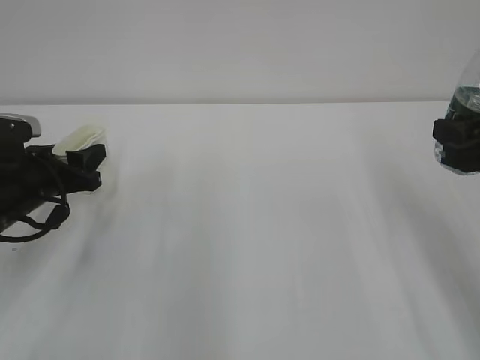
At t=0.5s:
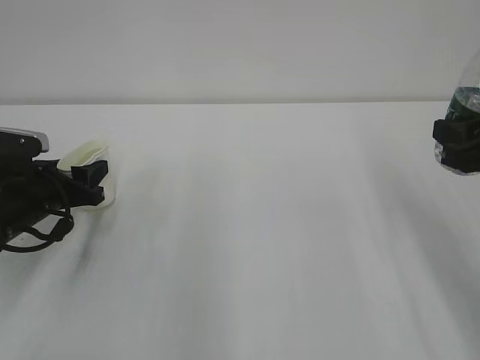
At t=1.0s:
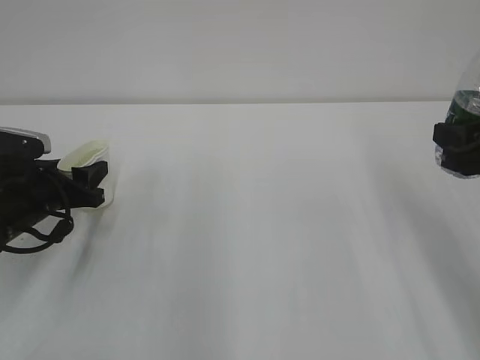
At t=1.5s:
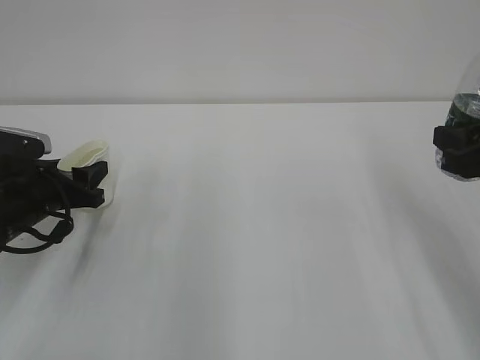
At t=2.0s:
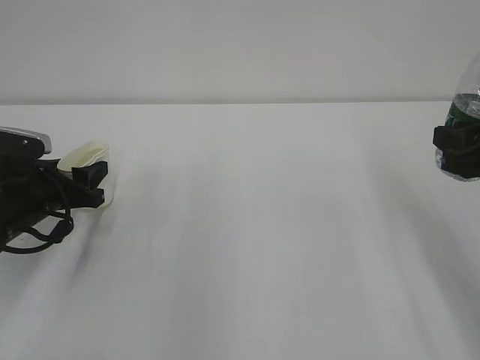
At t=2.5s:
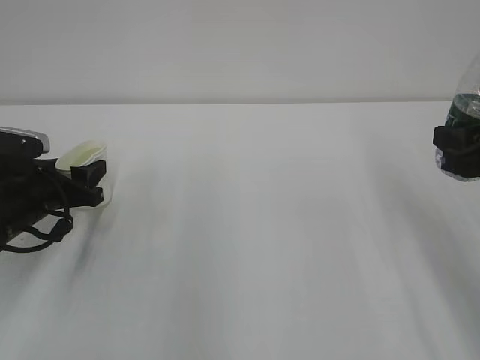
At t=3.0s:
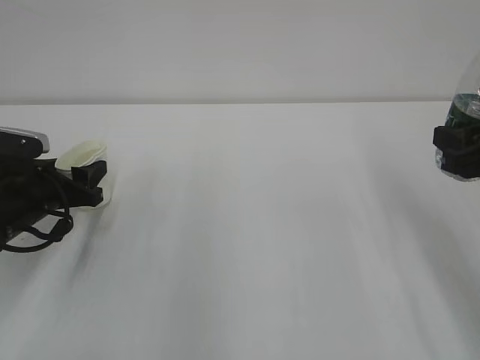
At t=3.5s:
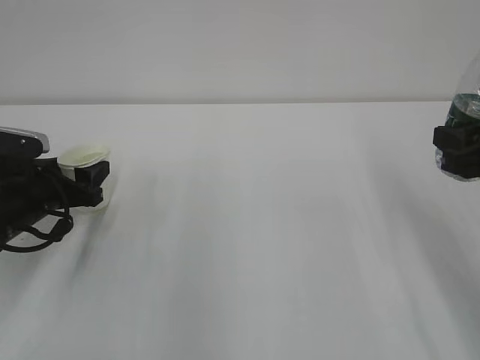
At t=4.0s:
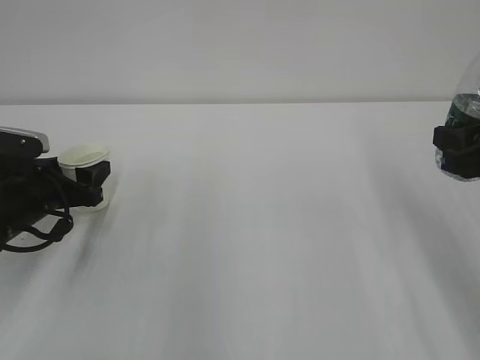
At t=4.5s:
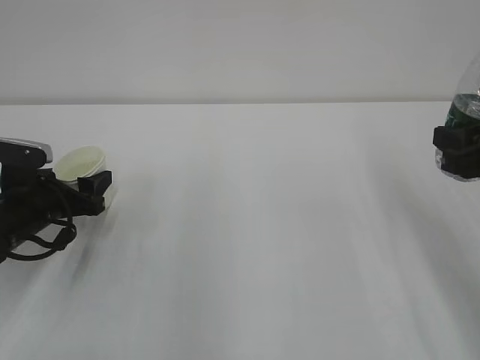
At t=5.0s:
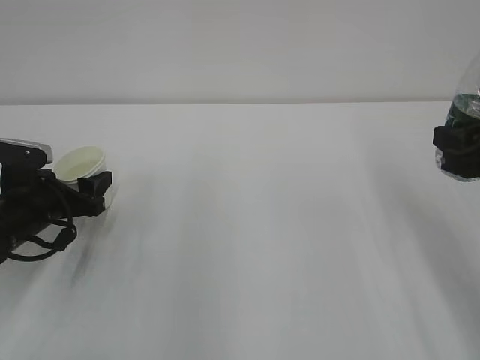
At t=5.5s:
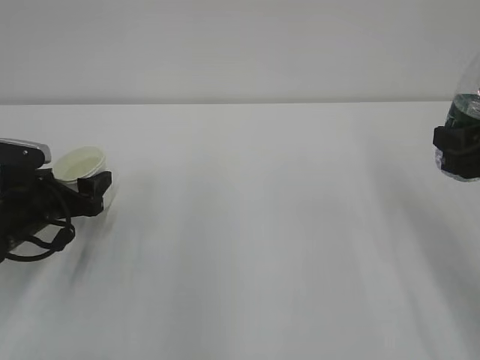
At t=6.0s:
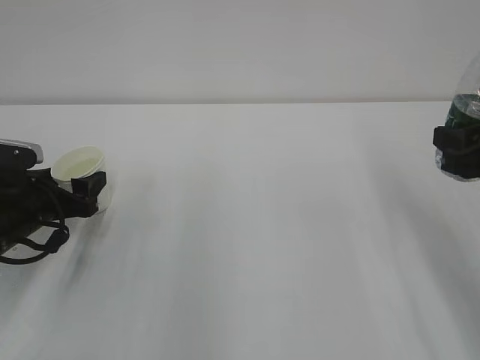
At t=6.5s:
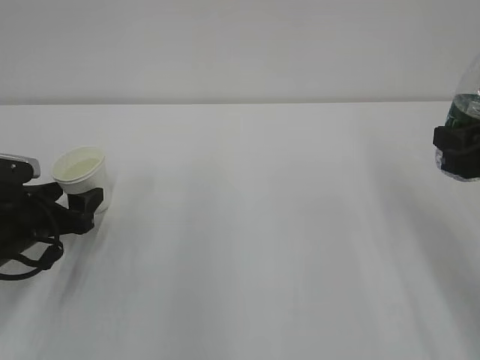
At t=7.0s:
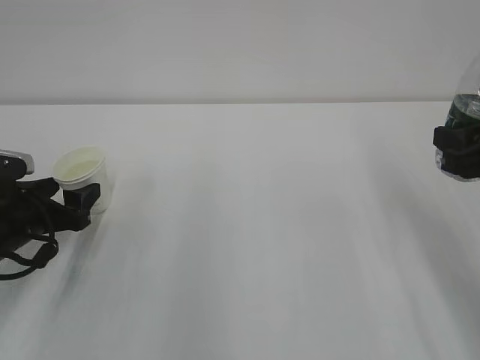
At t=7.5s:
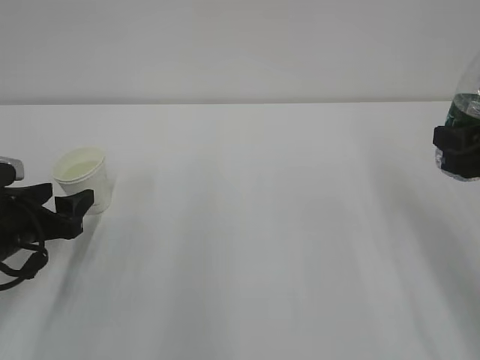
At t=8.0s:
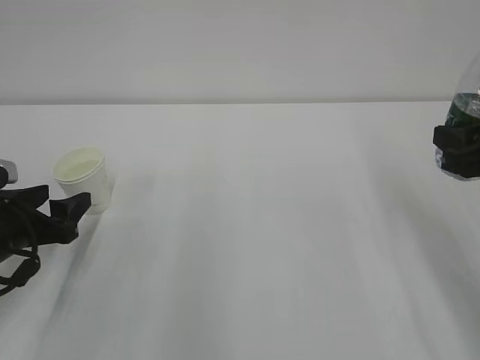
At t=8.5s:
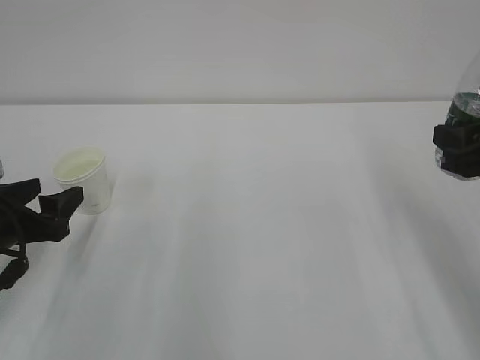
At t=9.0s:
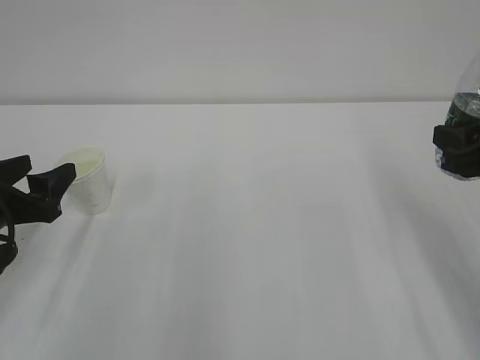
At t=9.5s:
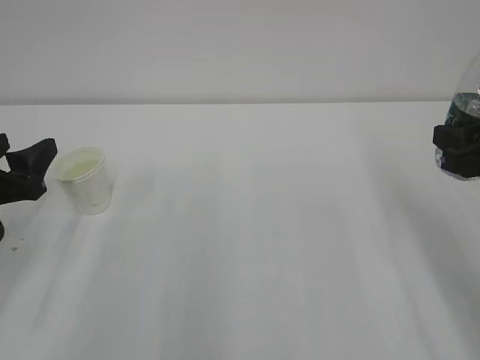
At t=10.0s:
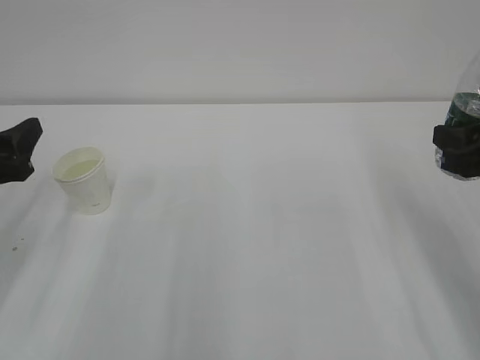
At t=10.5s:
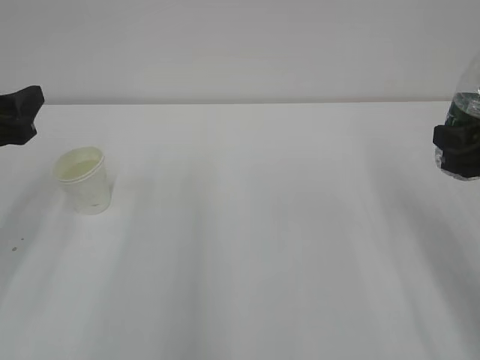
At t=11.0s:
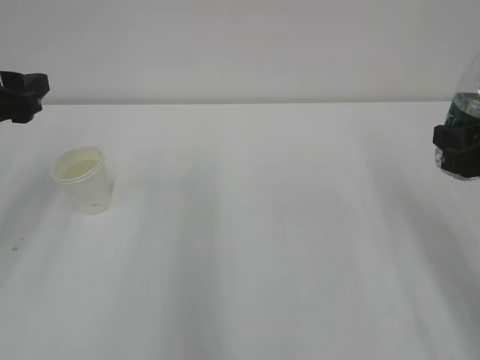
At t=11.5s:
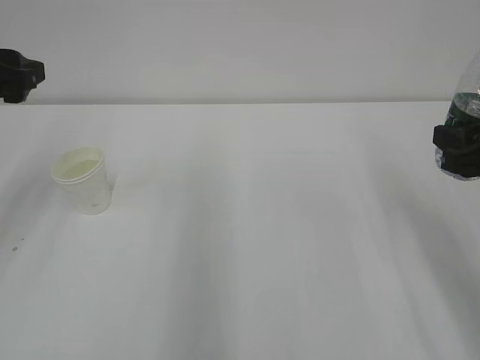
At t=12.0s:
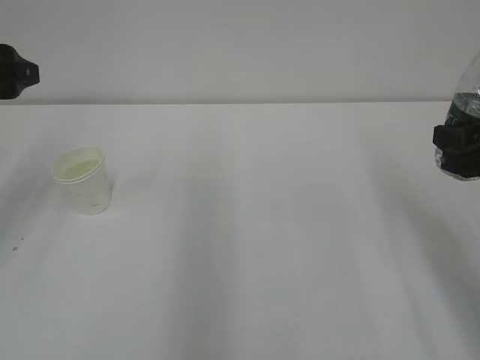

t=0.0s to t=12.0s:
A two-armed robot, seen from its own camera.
Step, t=0.0s to t=5.5s: Put the cup down with left gripper.
t=0.0s to t=2.0s: The grippers stay close to where they were, moving slightly.
t=2.0s to t=4.0s: The left gripper opens up.
t=4.0s to t=6.0s: The grippers make only small movements.
t=6.0s to t=8.0s: The left gripper shifts by about 5 cm.
t=8.0s to t=10.0s: The left gripper moves upward, approximately 10 cm.
t=10.0s to t=12.0s: The left gripper travels upward and forward by approximately 10 cm.

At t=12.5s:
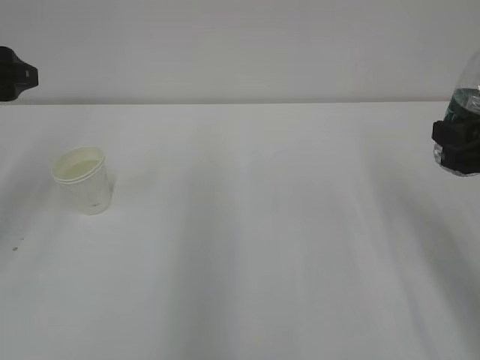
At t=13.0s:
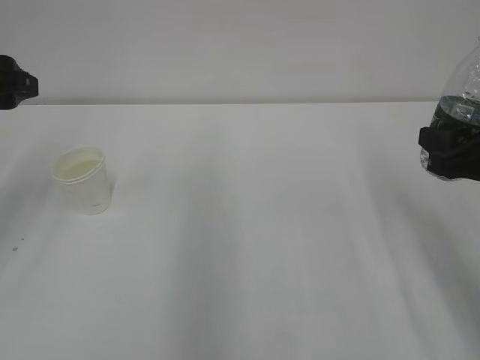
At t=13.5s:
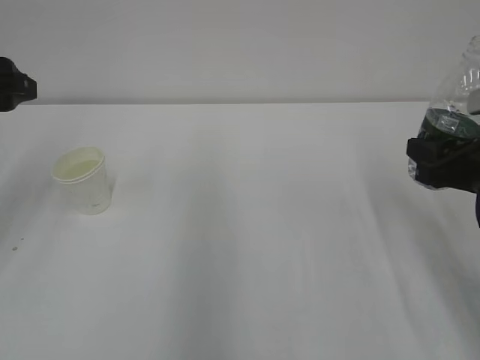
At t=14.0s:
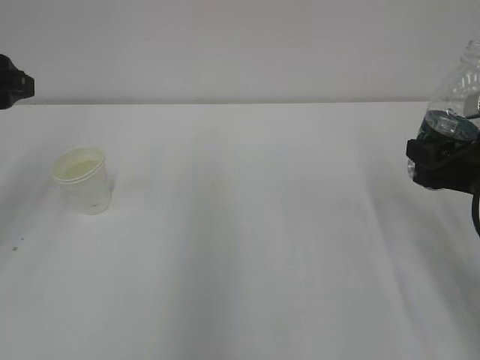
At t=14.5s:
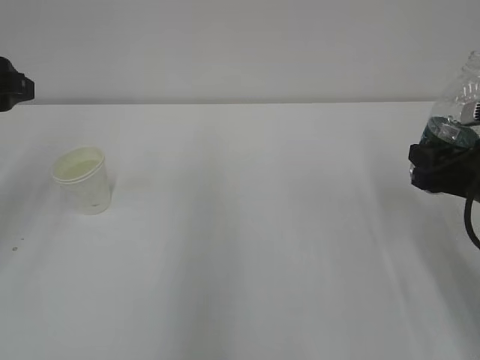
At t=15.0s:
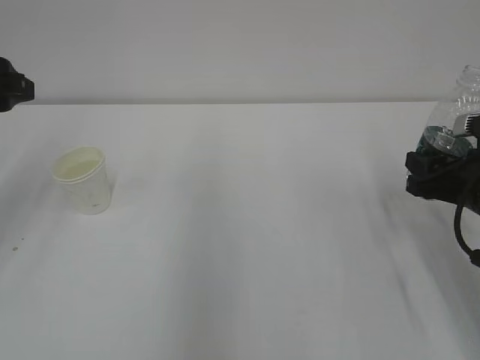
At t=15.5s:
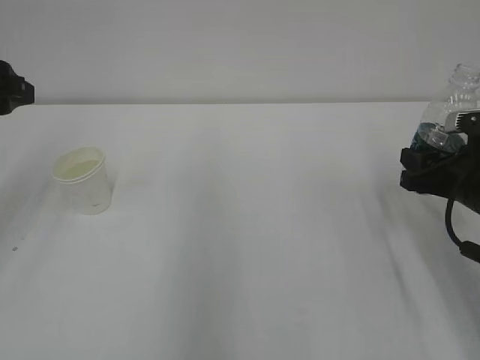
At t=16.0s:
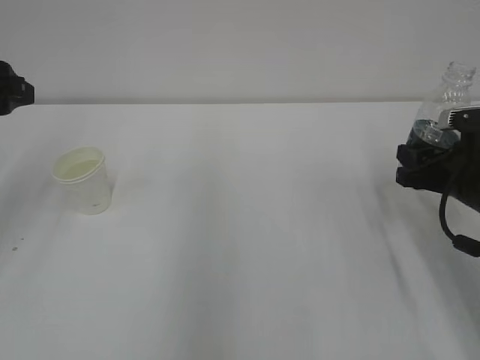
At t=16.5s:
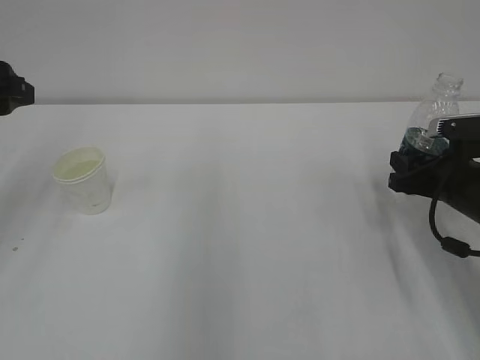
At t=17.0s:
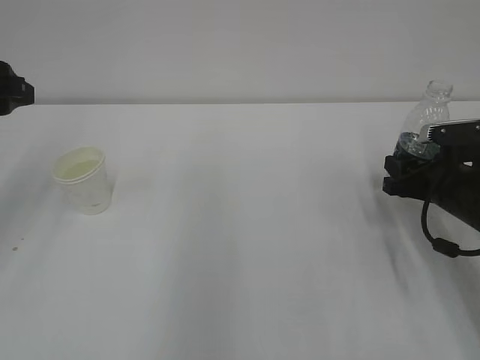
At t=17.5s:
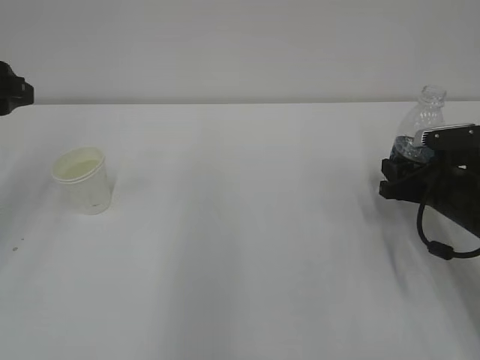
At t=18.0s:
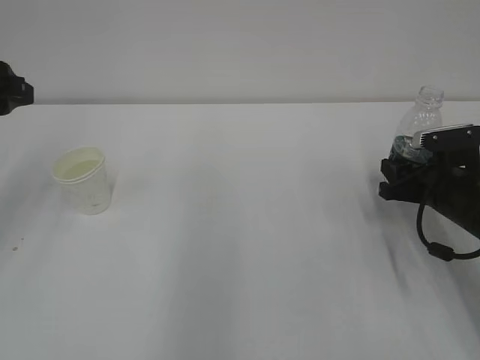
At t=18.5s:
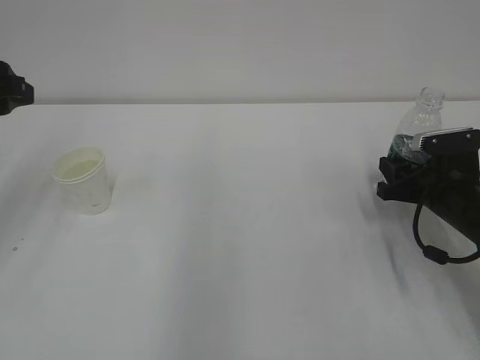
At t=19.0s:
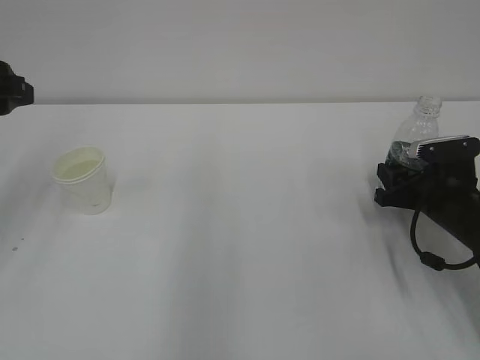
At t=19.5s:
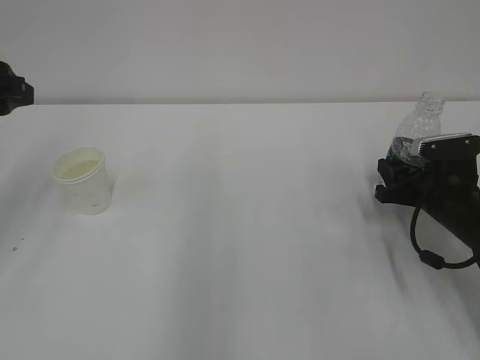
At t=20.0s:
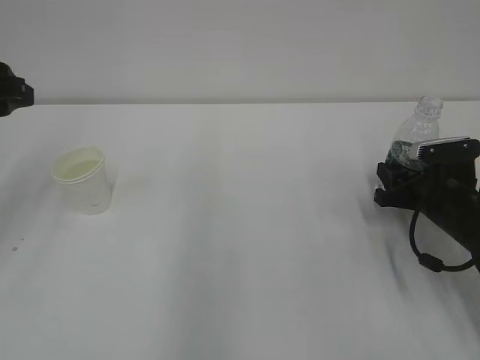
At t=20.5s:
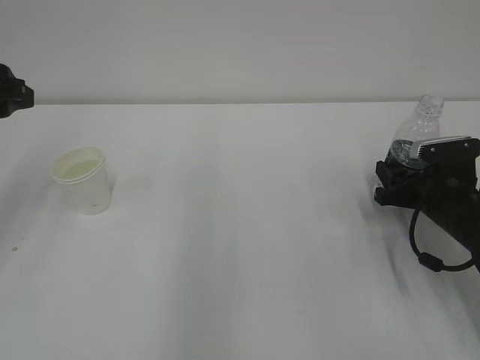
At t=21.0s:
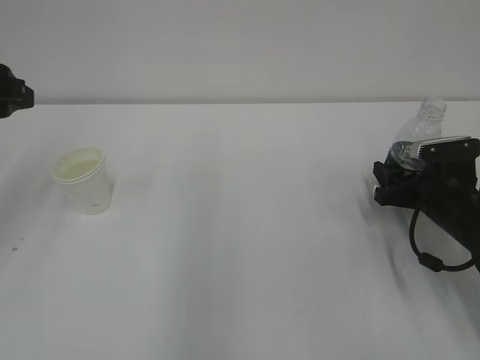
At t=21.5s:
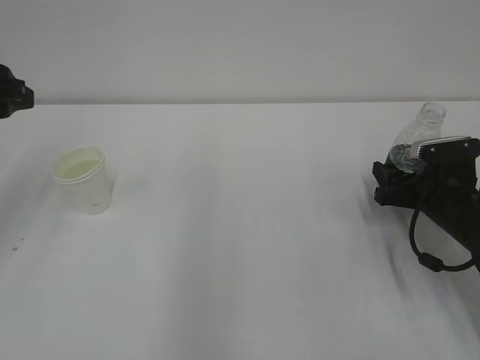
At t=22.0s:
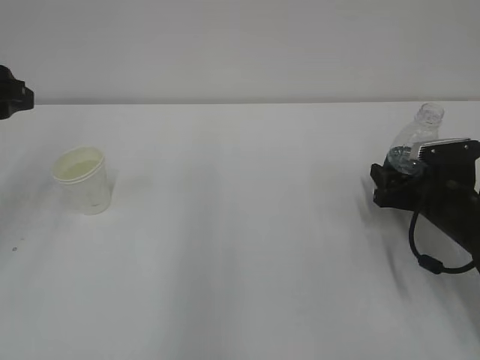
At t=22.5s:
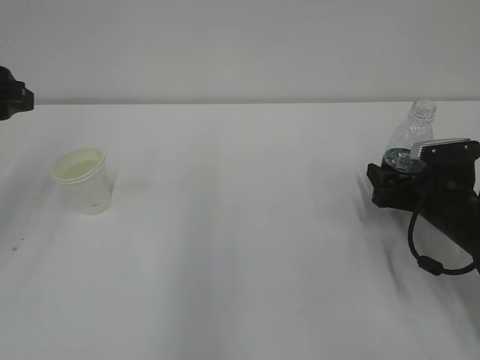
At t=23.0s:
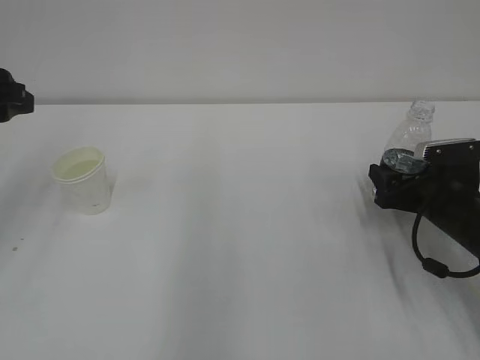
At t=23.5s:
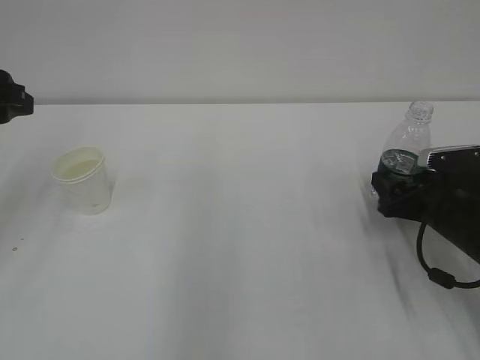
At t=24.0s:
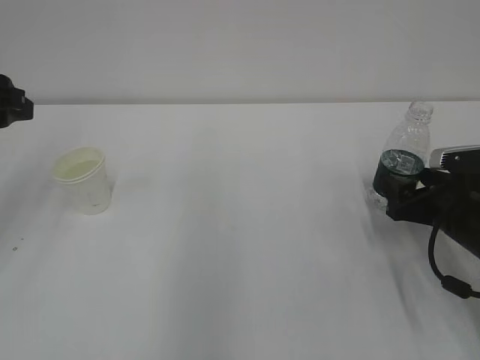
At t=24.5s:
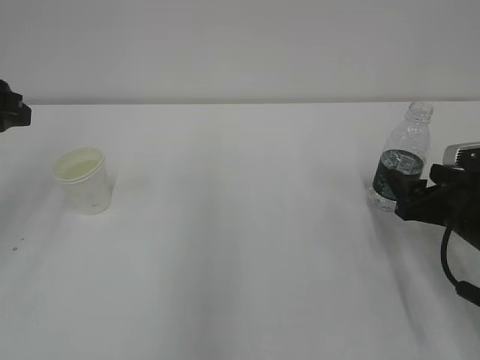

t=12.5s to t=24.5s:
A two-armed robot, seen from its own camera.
Step, t=12.5s to t=23.5s: Put the bottle down with right gripper.
t=12.5s to t=14.5s: The right gripper moves downward, roughly 5 cm.
t=14.5s to t=16.5s: The right gripper changes place by some 5 cm.
t=16.5s to t=20.5s: The grippers stay close to where they were, moving slightly.
t=20.5s to t=22.5s: The right gripper opens.
t=22.5s to t=24.5s: The right gripper shifts about 5 cm backward.

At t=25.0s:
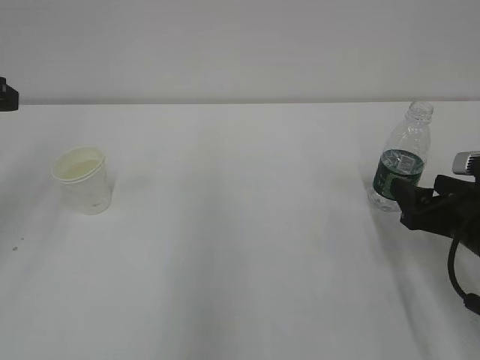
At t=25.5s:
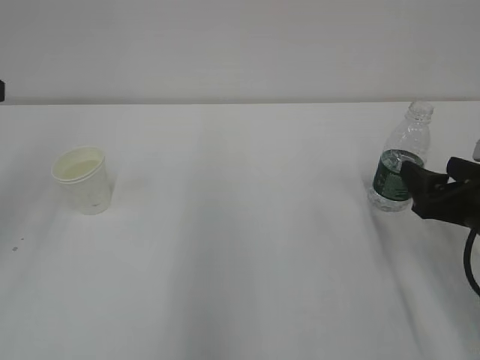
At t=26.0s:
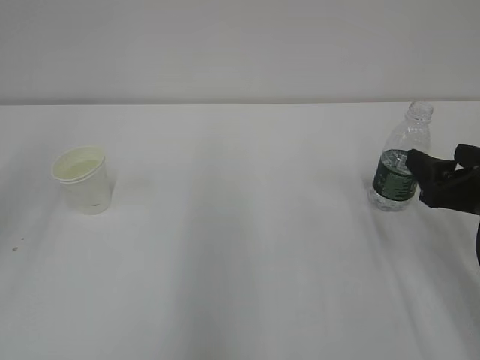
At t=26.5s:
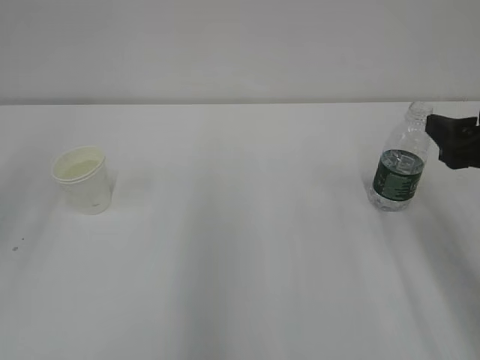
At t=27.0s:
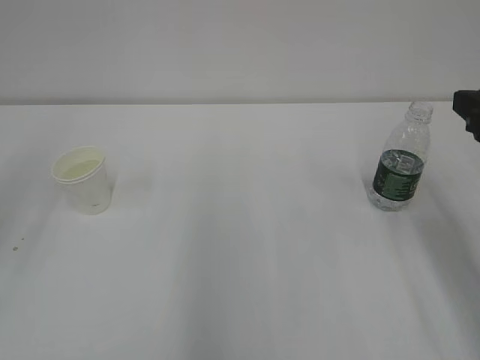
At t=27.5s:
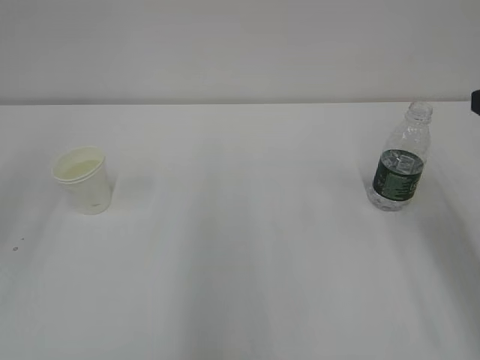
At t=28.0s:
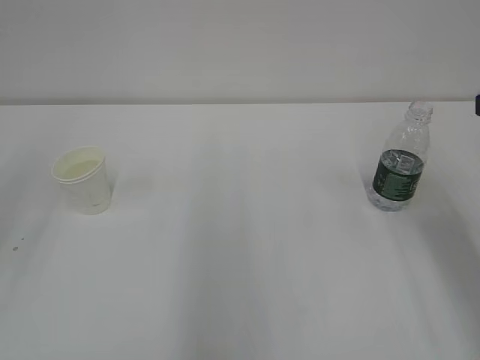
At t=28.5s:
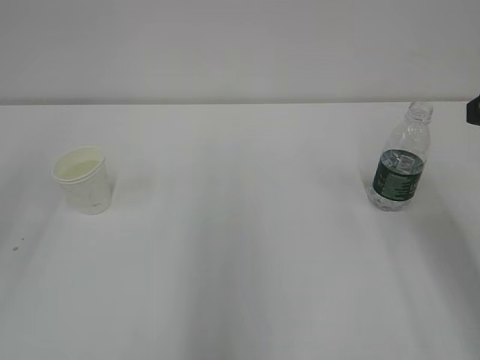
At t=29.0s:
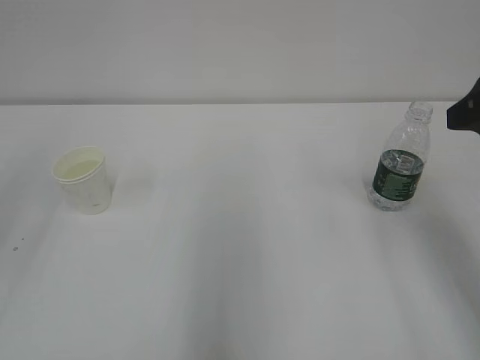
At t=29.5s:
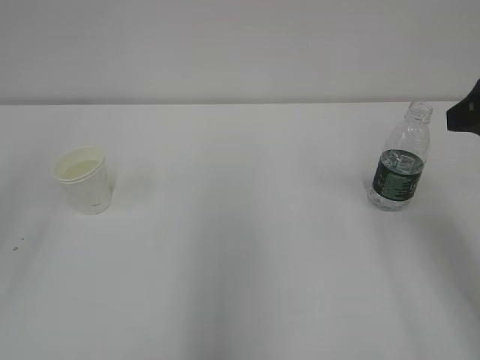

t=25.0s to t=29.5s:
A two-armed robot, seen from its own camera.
t=25.0s to t=27.0s: The right gripper heads upward, covering approximately 15 cm.
